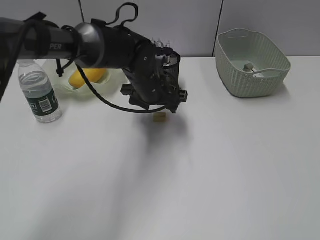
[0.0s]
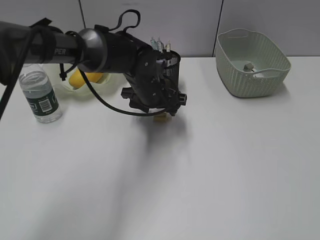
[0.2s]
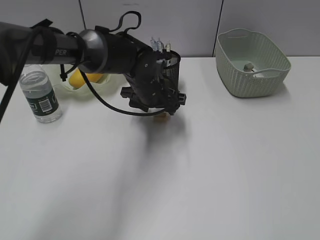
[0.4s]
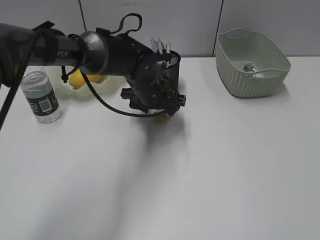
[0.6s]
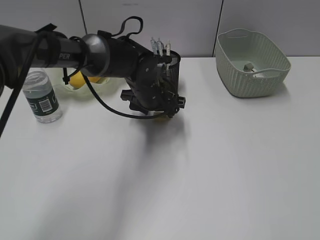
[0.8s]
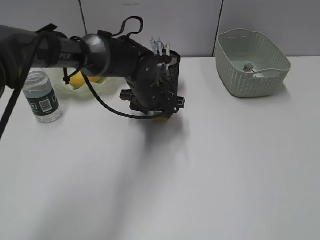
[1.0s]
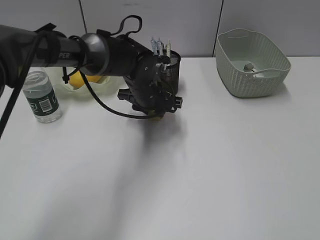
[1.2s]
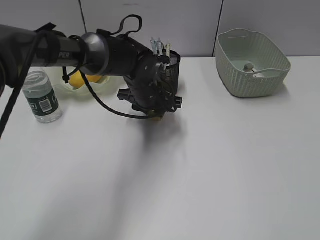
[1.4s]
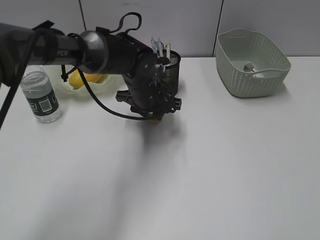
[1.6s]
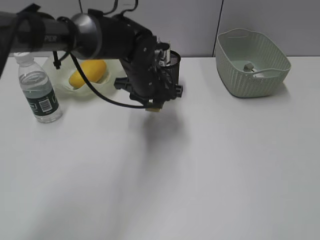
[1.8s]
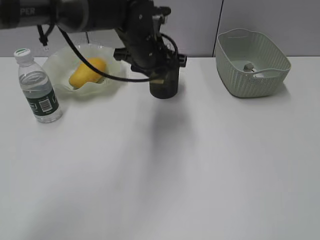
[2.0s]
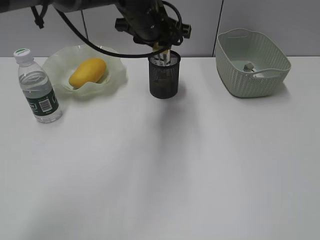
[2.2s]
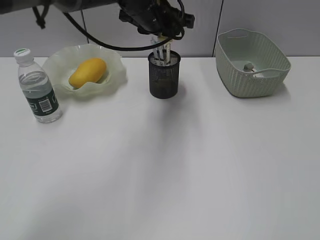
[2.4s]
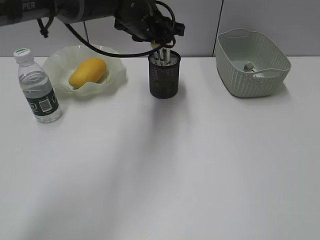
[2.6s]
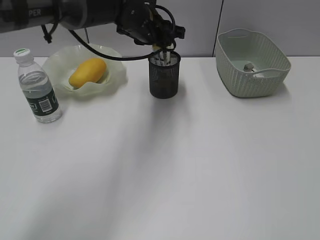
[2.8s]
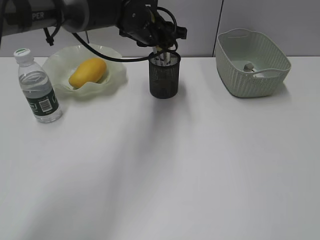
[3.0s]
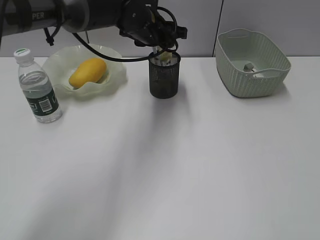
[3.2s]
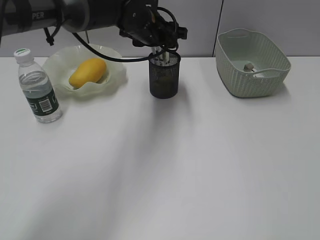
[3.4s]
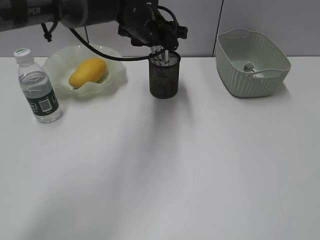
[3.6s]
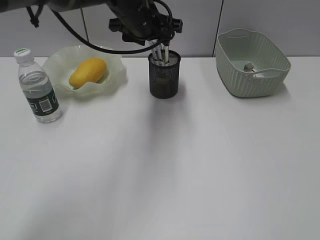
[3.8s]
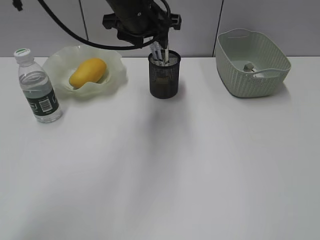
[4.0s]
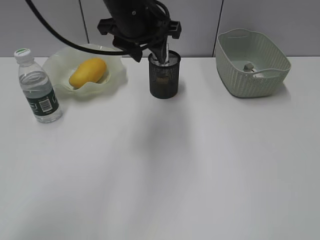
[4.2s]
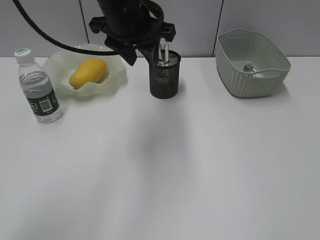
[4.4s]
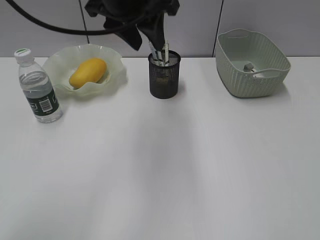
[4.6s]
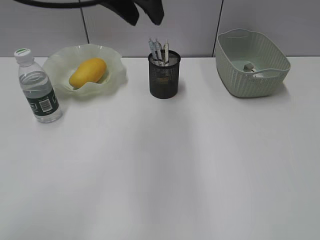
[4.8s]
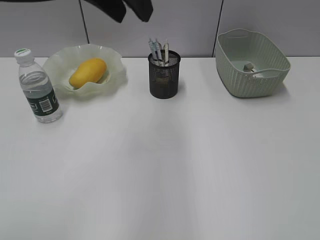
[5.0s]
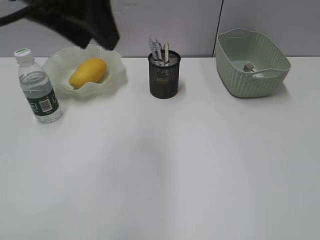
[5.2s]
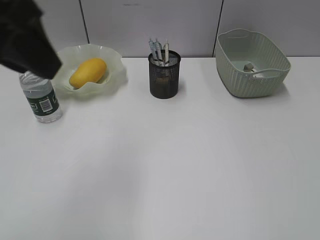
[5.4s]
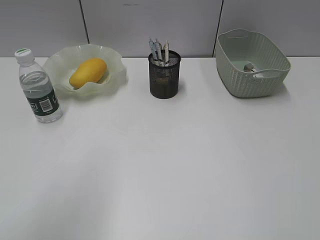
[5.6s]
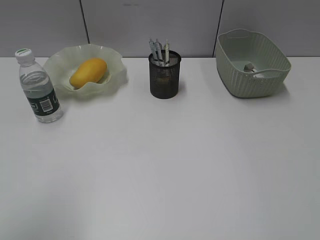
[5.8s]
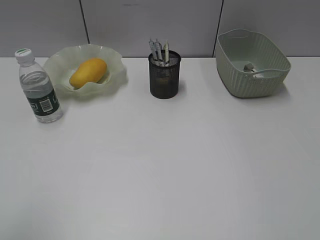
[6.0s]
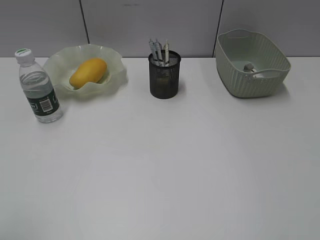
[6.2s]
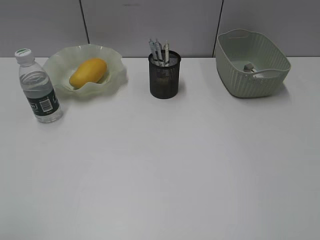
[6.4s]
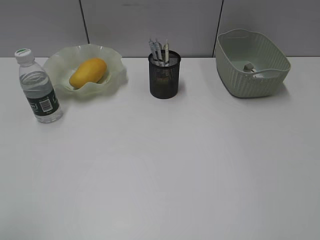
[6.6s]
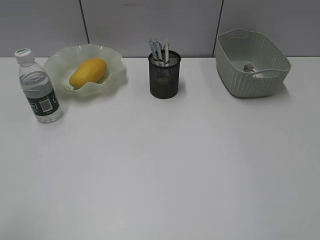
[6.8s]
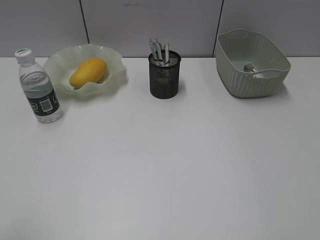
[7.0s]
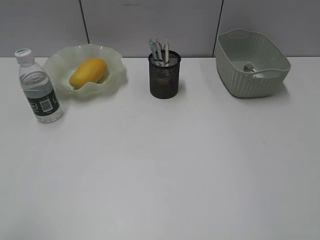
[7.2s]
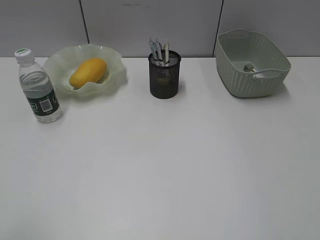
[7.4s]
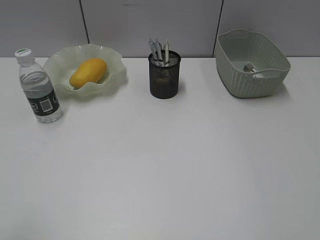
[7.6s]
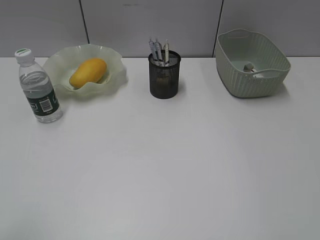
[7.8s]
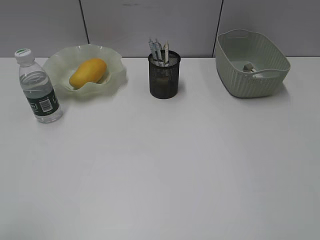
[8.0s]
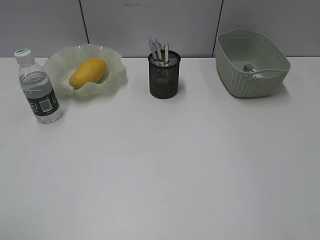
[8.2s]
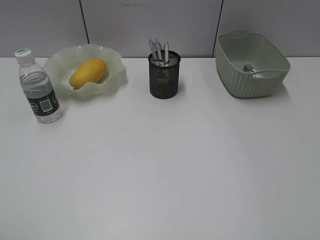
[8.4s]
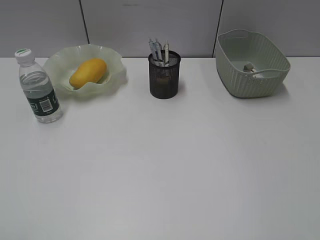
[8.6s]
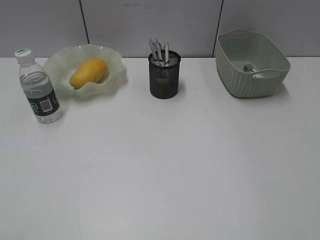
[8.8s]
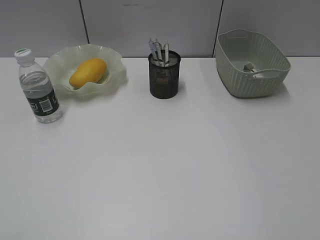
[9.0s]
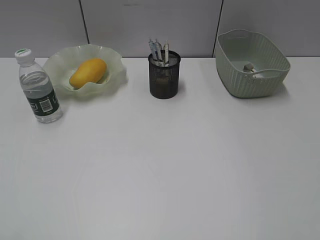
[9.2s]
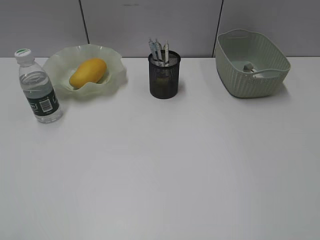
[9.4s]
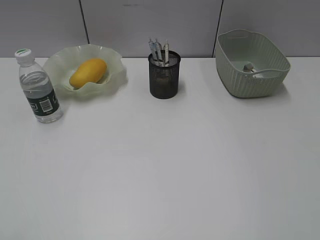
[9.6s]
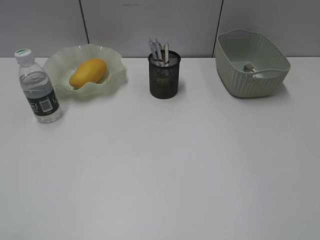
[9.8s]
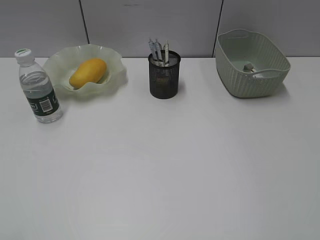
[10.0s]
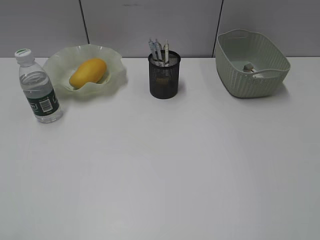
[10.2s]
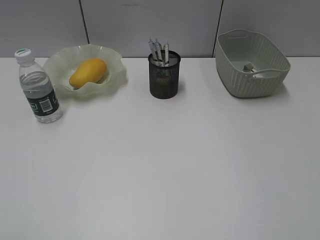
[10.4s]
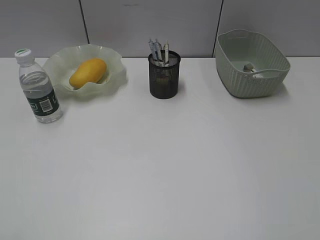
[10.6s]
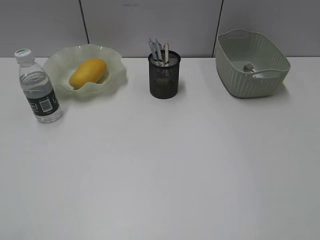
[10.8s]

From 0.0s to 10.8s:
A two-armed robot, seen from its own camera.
Step, from 1.6s to 3.4s: Place the eraser in pen holder with left gripper.
From 0.0s to 1.6s: The left gripper closes.
From 1.6s to 3.0s: The left gripper is displaced upward and forward by approximately 10 cm.
From 3.0s to 4.6s: The left gripper goes some 15 cm upward and backward.
From 4.6s to 6.2s: The left gripper shifts about 40 cm backward and to the left, and opens up.
From 9.2s to 10.8s: Both grippers stay put.
